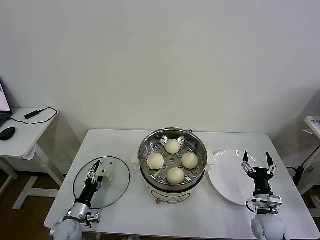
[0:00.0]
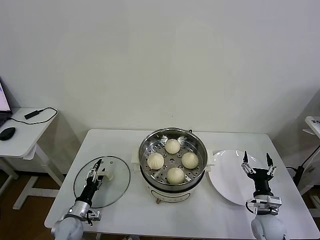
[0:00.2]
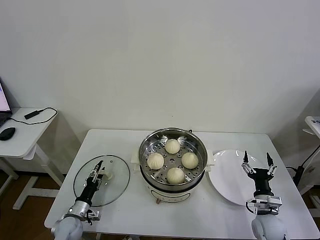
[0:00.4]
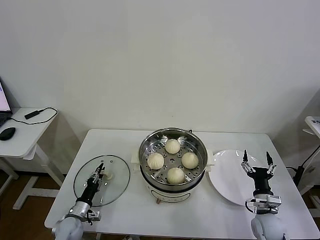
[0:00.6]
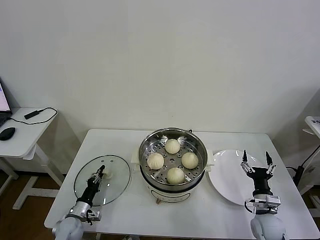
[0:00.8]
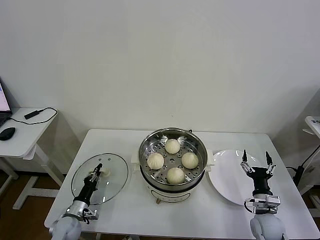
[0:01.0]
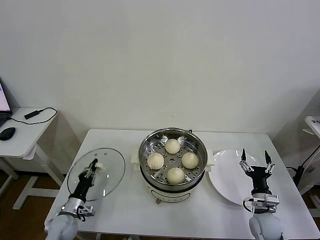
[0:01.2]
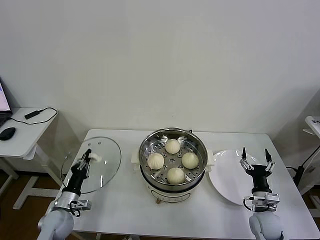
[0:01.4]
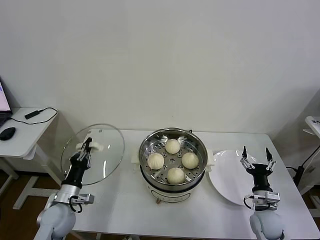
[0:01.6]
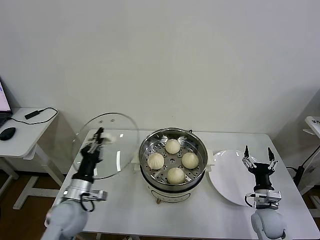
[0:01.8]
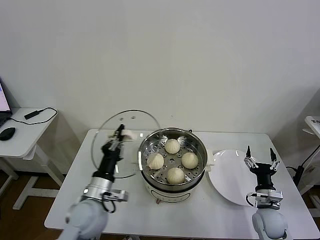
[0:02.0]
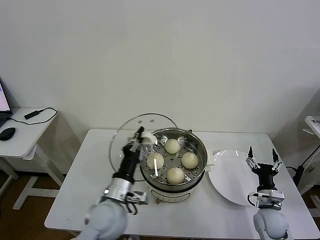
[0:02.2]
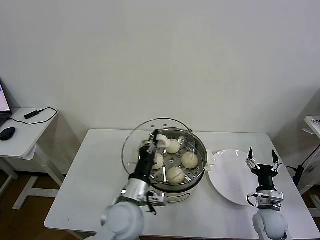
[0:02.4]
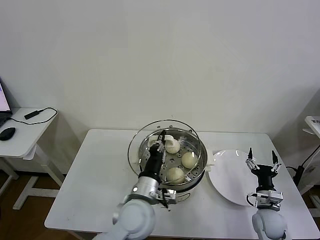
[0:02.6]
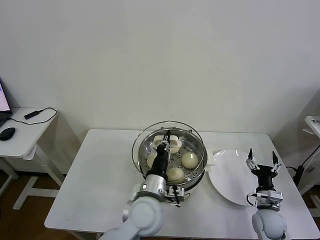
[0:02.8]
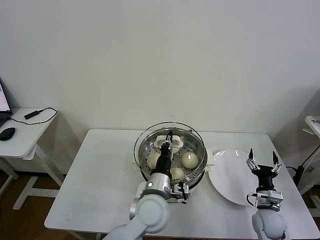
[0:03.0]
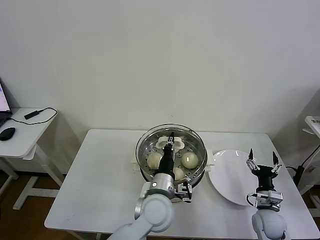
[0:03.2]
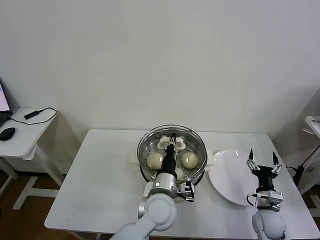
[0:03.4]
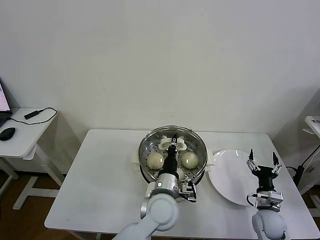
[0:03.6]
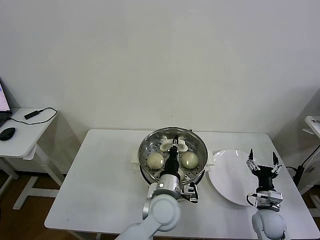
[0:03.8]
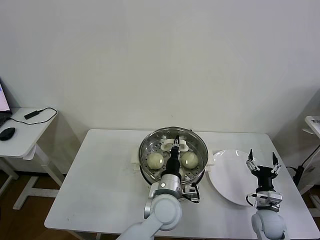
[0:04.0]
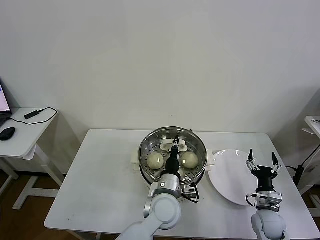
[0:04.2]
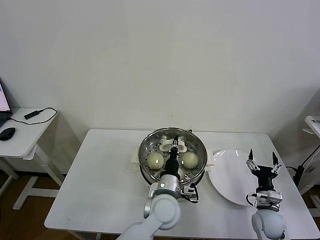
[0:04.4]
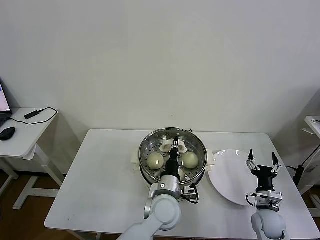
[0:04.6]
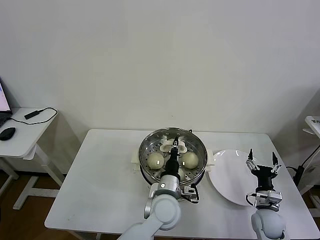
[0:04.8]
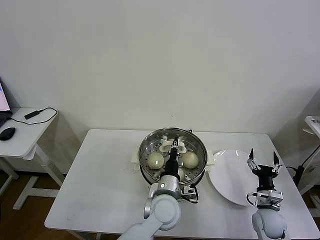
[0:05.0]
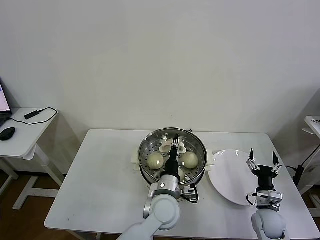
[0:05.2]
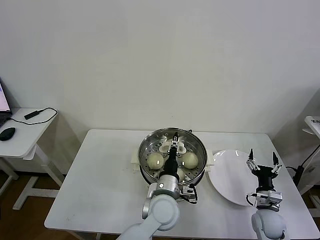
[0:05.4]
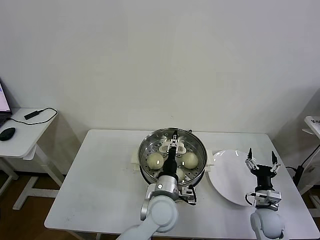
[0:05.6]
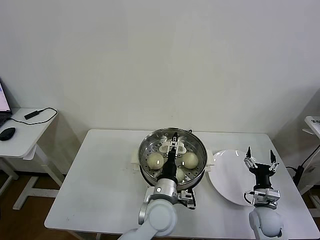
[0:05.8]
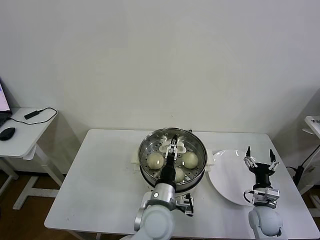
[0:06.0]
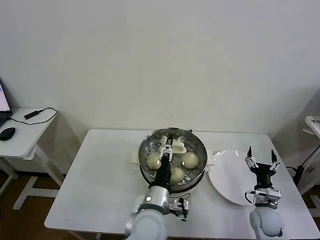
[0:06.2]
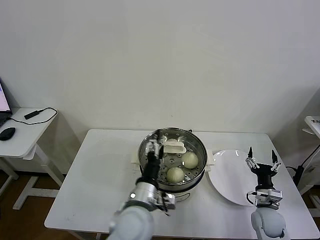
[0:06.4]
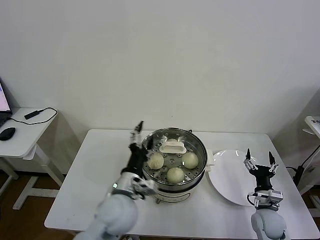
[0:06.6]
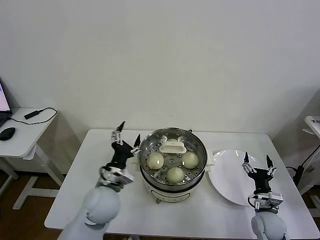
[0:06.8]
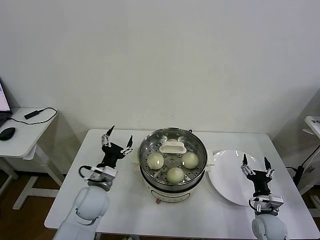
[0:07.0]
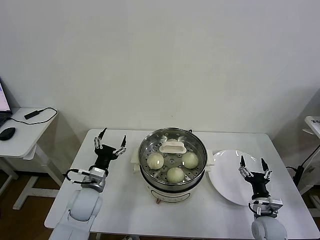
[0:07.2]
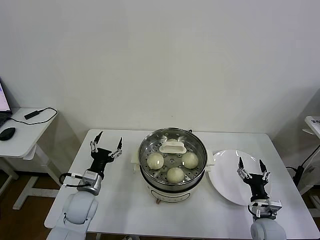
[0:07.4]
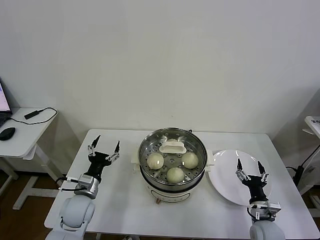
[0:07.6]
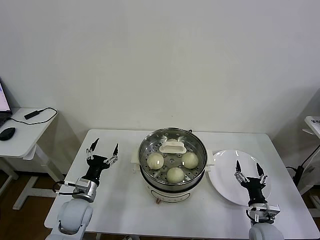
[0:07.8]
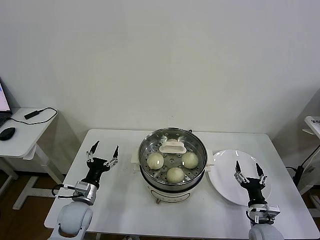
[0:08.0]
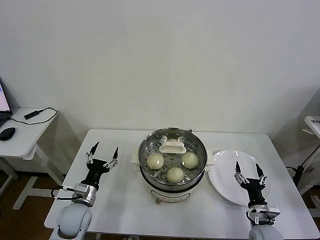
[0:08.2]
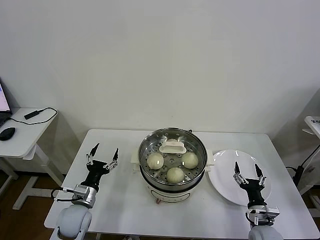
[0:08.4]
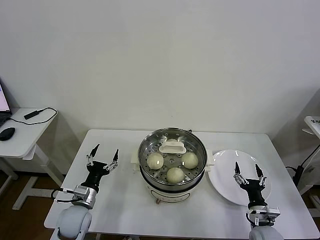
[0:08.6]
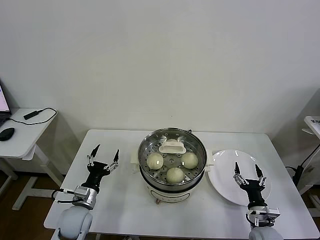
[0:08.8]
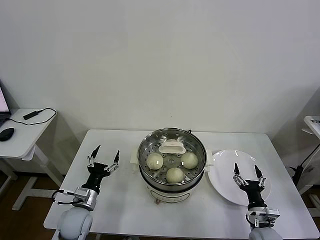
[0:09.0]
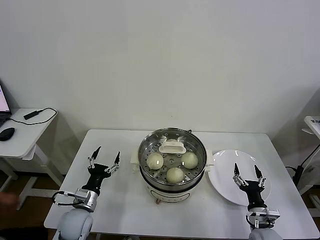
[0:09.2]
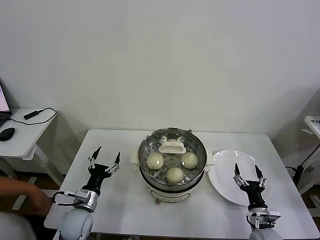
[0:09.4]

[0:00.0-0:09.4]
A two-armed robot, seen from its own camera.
Task of the whole recording: take steamed baozi put them in steamer then cover it.
Step, 0:01.2 to 0:05.4: Place the pot lid on the steamer with left gripper.
0:00.0 to 0:01.6: The left gripper travels upward by about 10 cm, and closes.
0:01.6 to 0:03.2: The left gripper travels to the right by about 30 cm.
0:03.2 to 0:04.8: The grippers stay close to where they were, moving slightly.
0:04.8 to 0:06.2: The left gripper shifts by some 5 cm, and opens up.
0:06.2 to 0:07.8: The left gripper is displaced to the left by approximately 25 cm.
0:07.8 to 0:09.4: The grippers stay close to where they were, moving slightly.

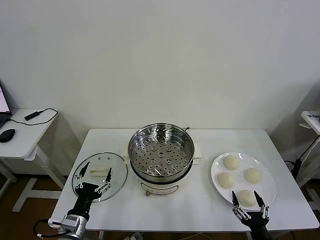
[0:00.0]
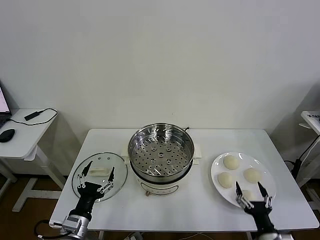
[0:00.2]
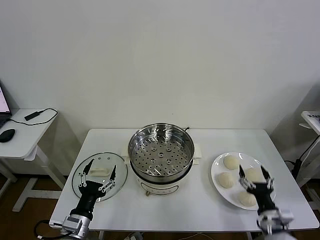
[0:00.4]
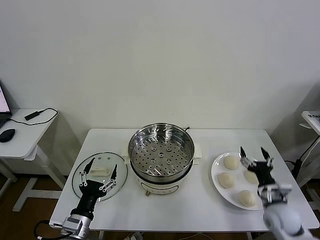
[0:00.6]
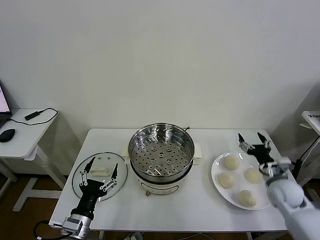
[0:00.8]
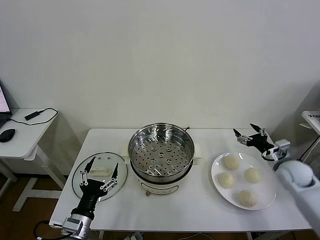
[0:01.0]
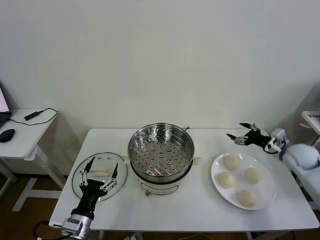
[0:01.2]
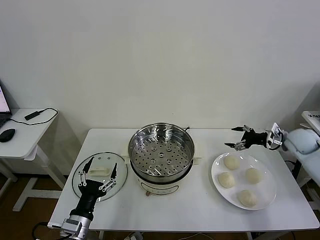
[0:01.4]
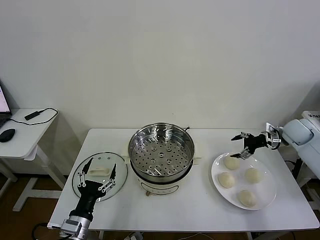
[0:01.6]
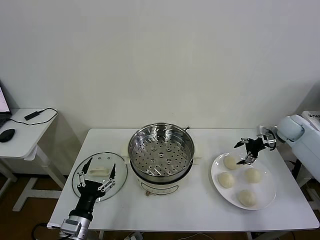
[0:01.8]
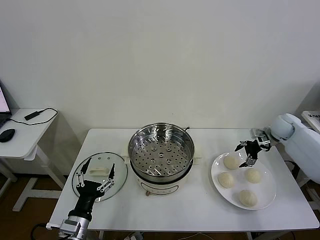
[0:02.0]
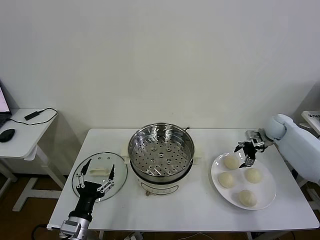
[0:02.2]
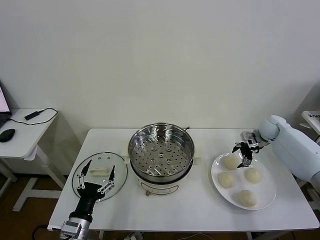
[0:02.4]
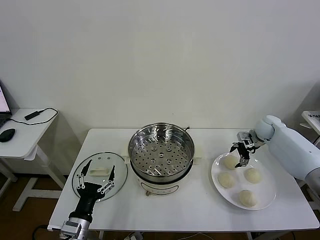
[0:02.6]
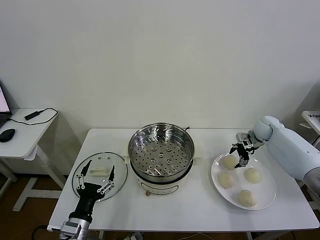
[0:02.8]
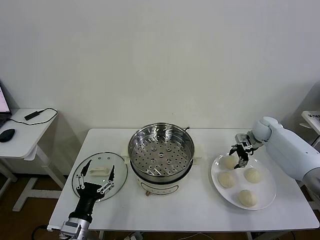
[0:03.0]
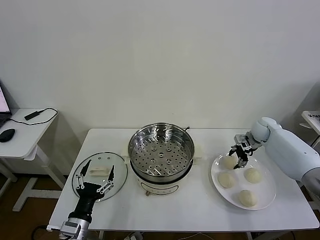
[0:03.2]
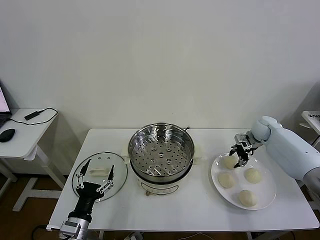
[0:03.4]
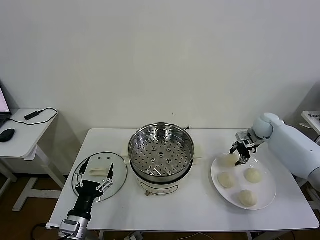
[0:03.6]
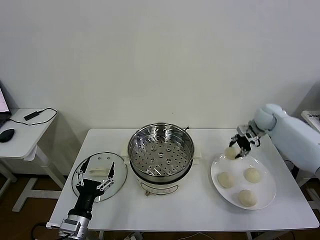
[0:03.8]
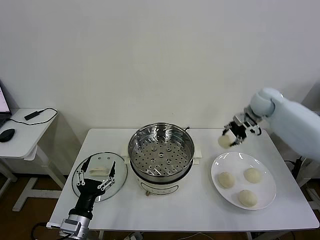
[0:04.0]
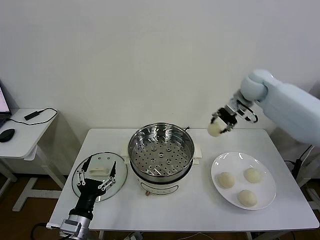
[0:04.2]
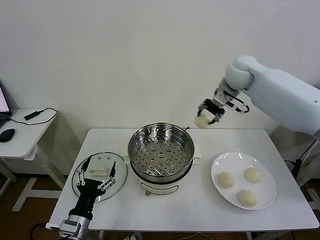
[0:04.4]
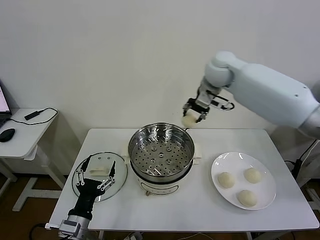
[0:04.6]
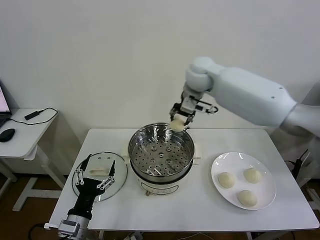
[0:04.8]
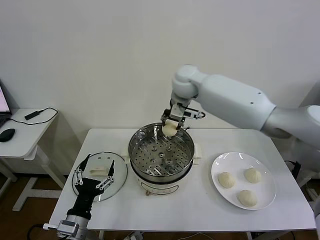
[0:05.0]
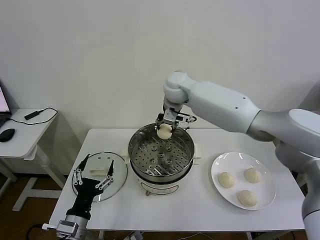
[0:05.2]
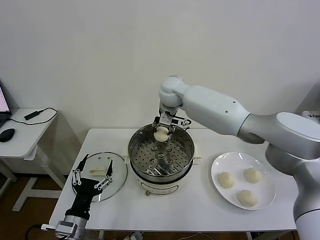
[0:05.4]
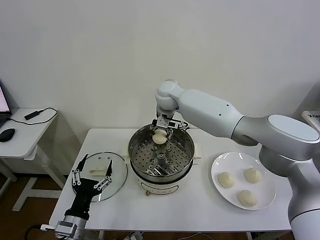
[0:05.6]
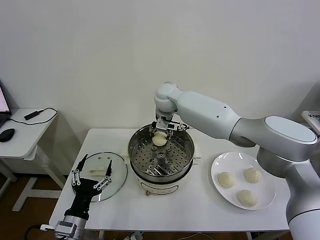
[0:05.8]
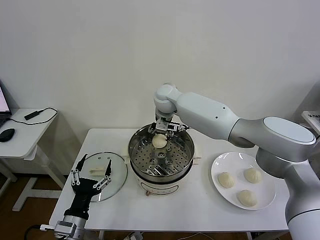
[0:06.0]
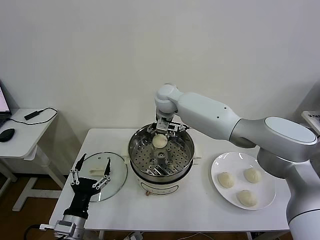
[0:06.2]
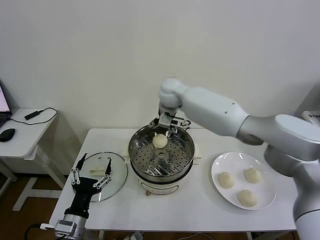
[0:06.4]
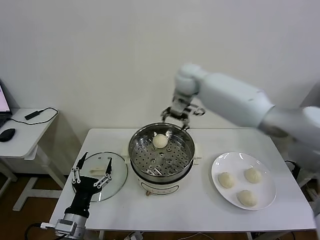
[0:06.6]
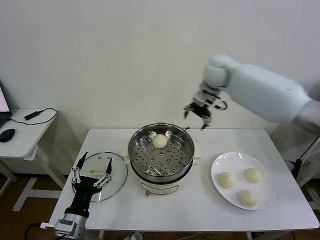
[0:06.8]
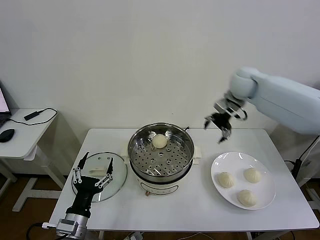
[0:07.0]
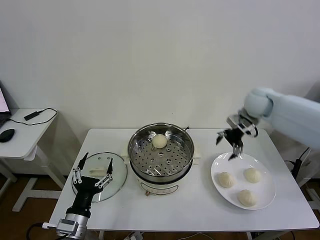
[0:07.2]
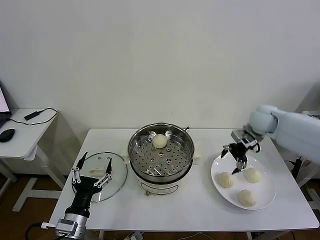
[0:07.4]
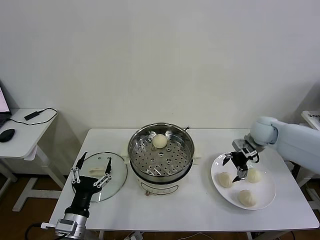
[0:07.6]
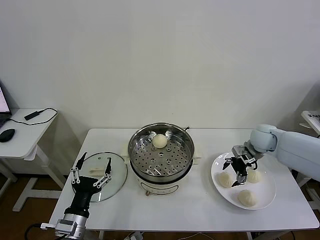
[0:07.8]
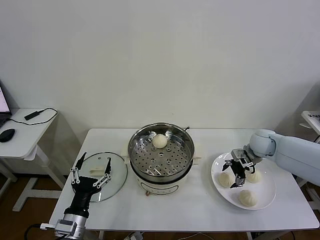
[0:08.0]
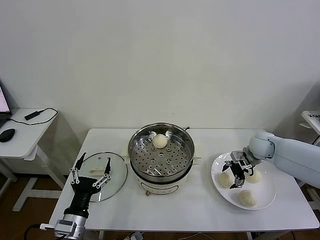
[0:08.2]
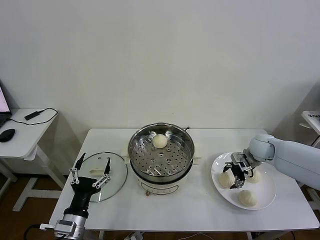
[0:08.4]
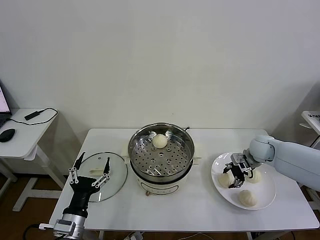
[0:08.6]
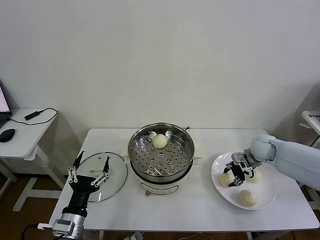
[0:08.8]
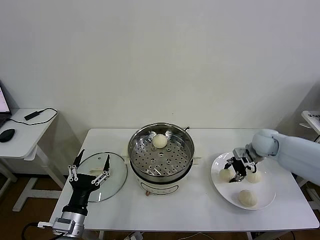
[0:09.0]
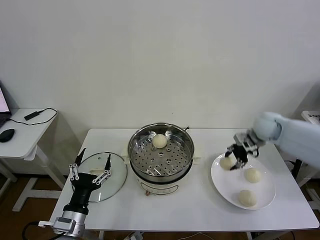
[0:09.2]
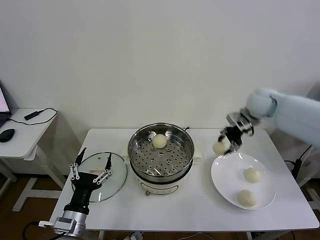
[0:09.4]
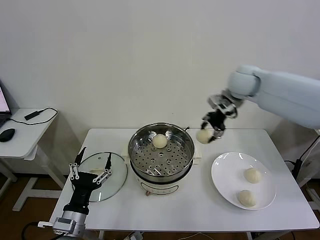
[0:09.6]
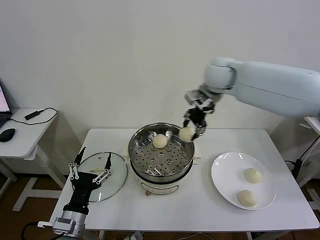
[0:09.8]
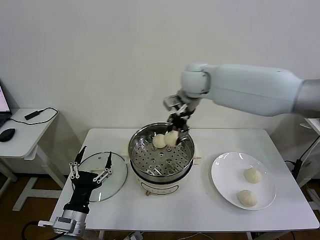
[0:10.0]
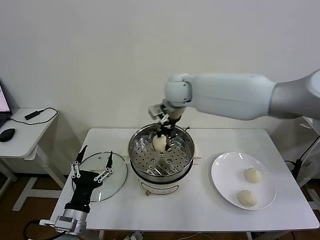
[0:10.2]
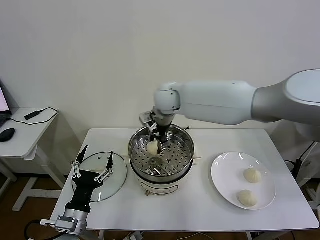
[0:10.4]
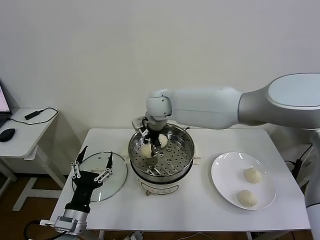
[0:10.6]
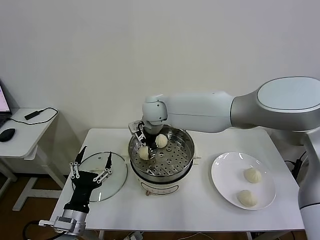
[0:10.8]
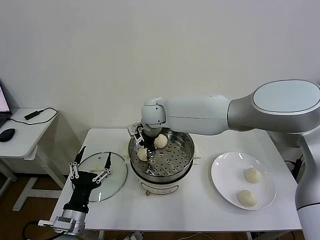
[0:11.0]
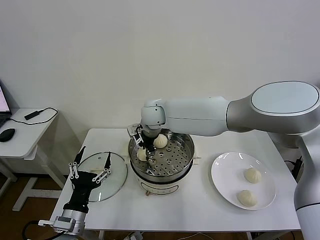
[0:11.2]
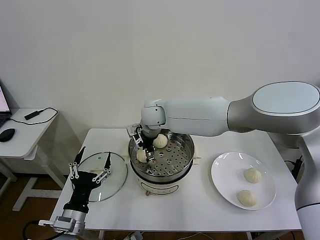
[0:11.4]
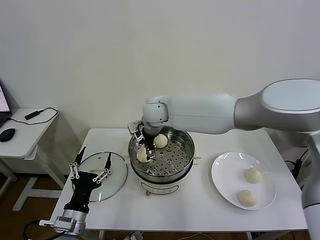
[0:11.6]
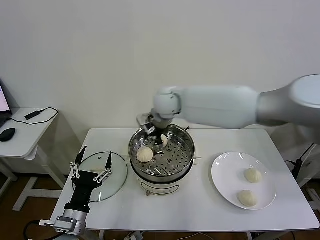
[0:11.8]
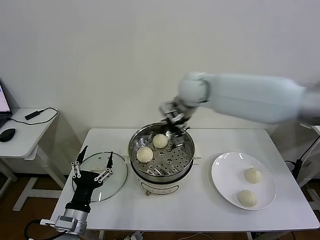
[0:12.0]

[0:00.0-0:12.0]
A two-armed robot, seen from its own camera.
Task of the whole recording: take steamed baozi put them in steamer then cover it.
Step, 0:00.0 to 0:03.4: Grasp the baozi in the plate with right gripper.
Step, 0:03.6 to 0:06.0: Place the baozi on the steamer with right gripper.
Step, 0:06.2 to 0:08.8: Grasp the baozi in the plate with right gripper.
Step, 0:09.0 to 0:11.4: Place the baozi on the steamer with right gripper.
0:01.6 to 0:03.0: The right gripper travels forward, to the left and downward by roughly 10 cm, and closes up.
0:03.0 to 0:04.4: The right gripper moves upward and to the left, roughly 30 cm, and closes.
0:04.4 to 0:06.0: The right gripper shifts roughly 25 cm to the left and downward, and opens.
0:06.0 to 0:07.6: The right gripper travels to the right by some 35 cm, and opens up.
0:07.6 to 0:09.0: The right gripper closes up.
0:09.0 to 0:10.4: The right gripper travels to the left and upward by approximately 40 cm.
0:10.4 to 0:12.0: The right gripper shifts approximately 10 cm to the right, and opens.
